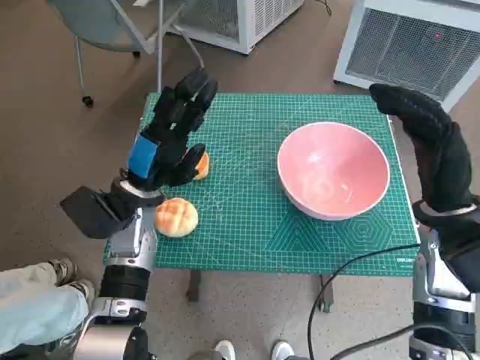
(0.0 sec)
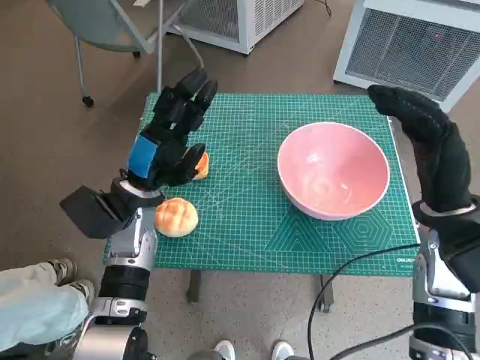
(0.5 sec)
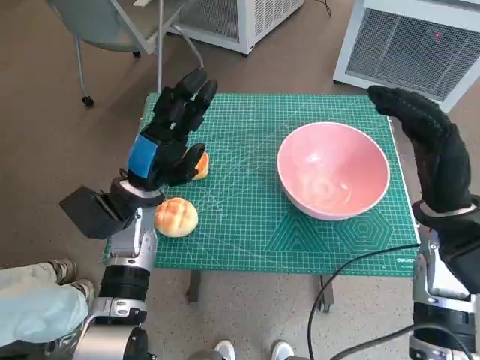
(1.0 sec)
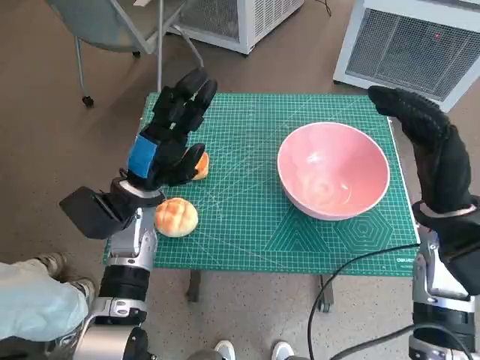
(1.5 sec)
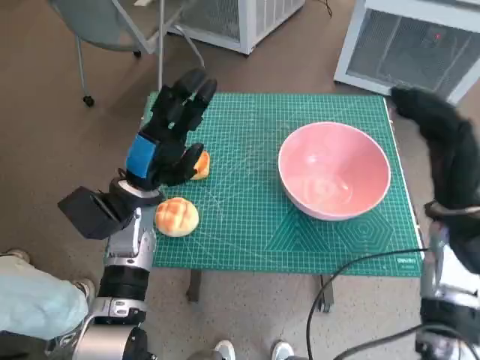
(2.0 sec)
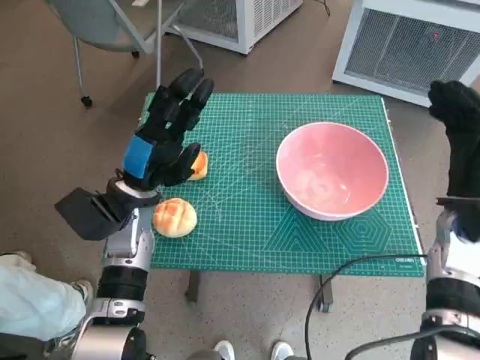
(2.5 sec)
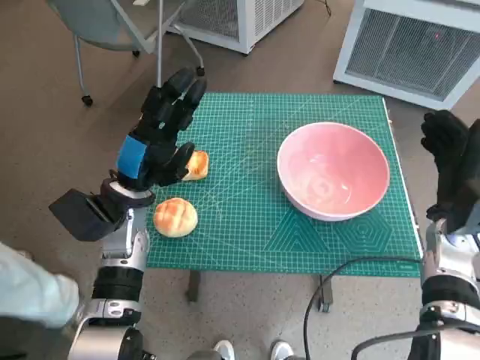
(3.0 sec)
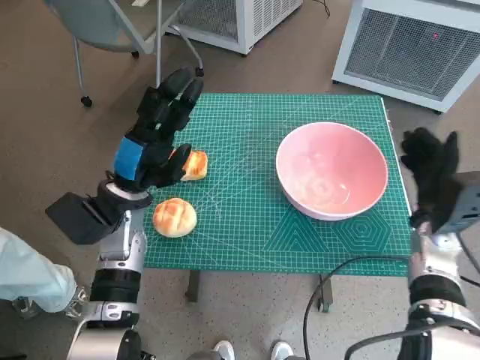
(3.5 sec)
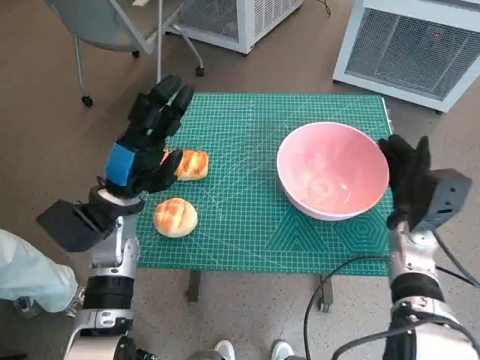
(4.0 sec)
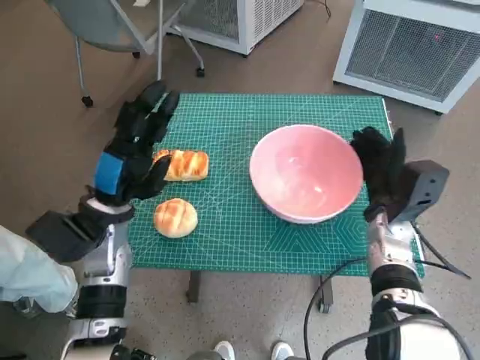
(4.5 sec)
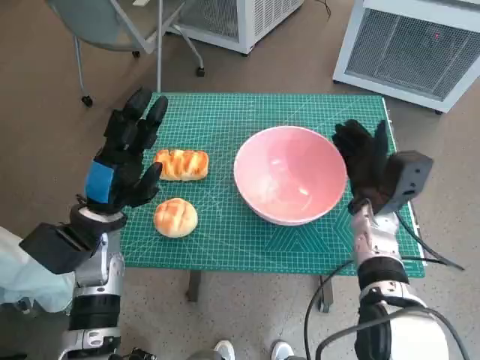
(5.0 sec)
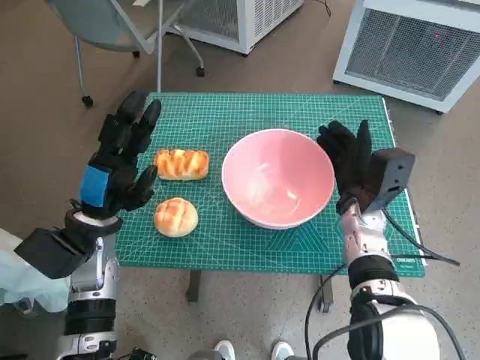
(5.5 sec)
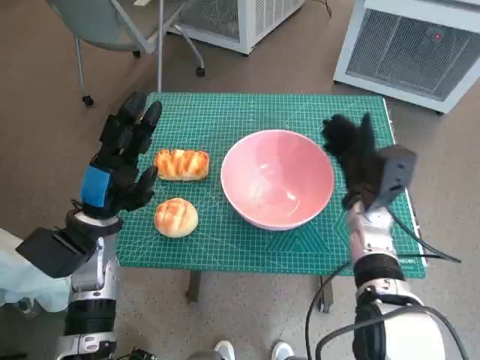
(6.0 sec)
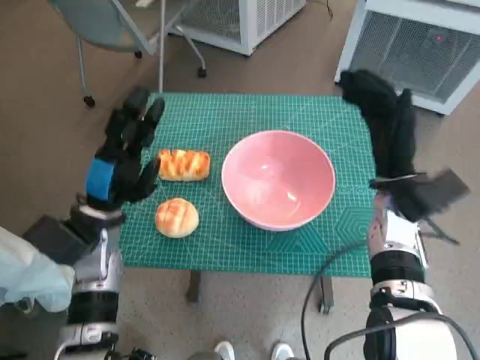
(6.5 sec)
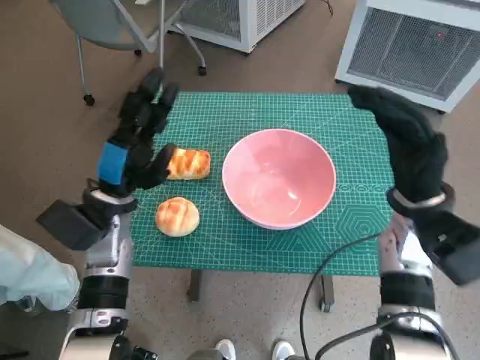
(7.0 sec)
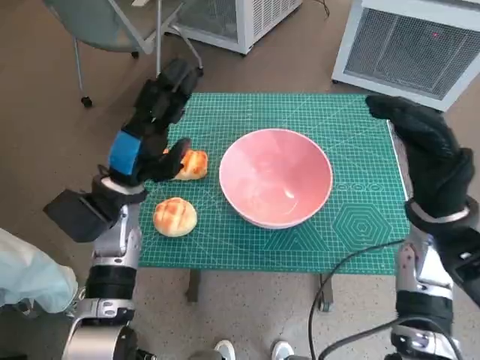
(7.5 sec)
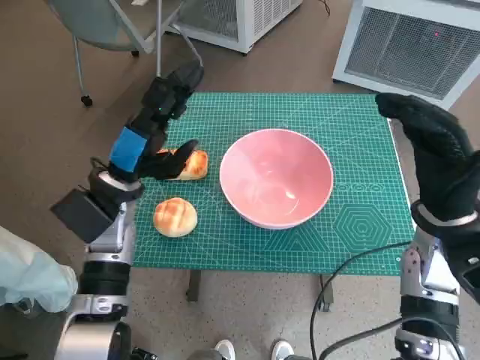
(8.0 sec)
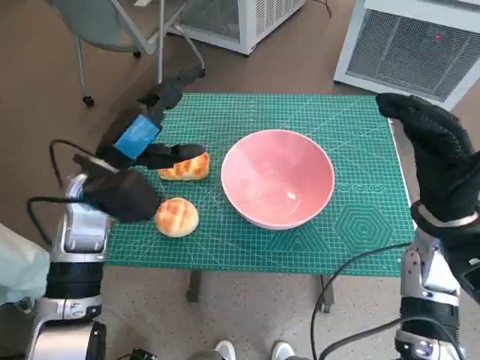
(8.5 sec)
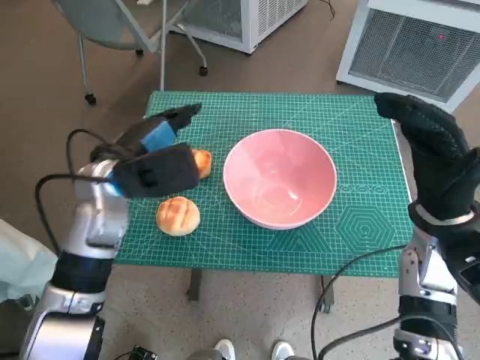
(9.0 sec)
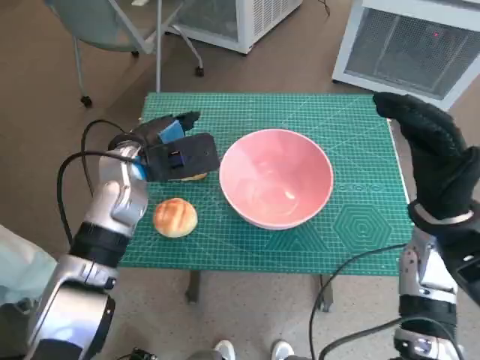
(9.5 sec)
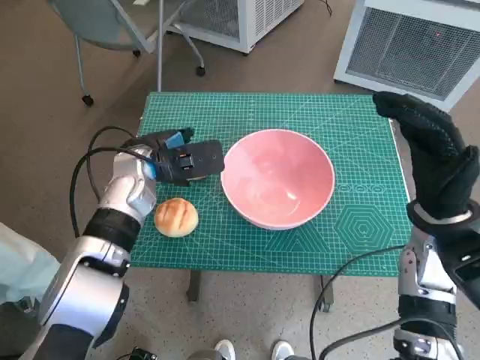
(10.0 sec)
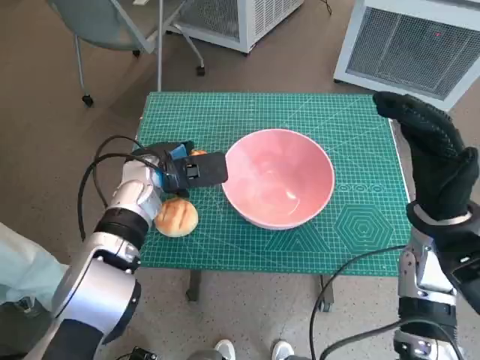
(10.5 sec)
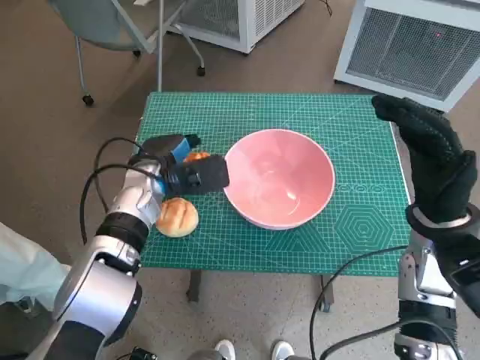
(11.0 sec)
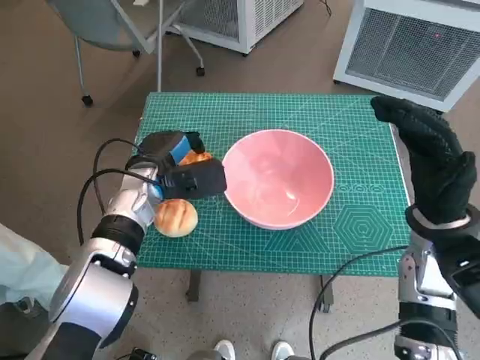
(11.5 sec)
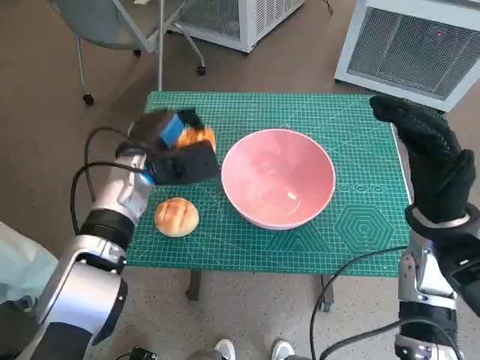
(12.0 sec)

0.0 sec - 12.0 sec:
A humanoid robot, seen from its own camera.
Task of the whole recording: Push the bowl into the center of the table and put the bread into the bowl.
Step, 0.0 sec - 6.0 sec: Move the pink bowl to the center of table with right hand.
Step, 6.5 sec - 11.0 sec: Grasp the long bread with left hand.
2.0 sec - 4.0 sec: The right hand goes roughly 10 cm downward.
4.0 sec - 6.0 sec: The right hand heads to the left, covering approximately 5 cm.
6.0 sec - 8.0 sec: The right hand shifts approximately 10 cm upward, backward and to the right, while the left hand shifts by approximately 5 cm.
8.0 sec - 10.0 sec: The left hand goes about 5 cm forward.

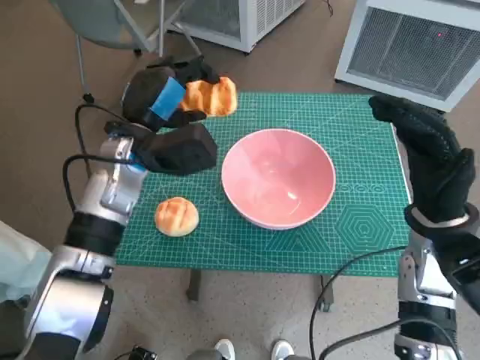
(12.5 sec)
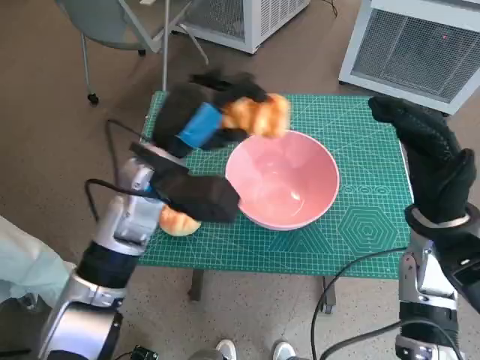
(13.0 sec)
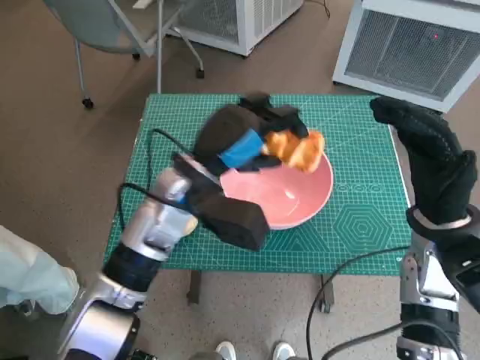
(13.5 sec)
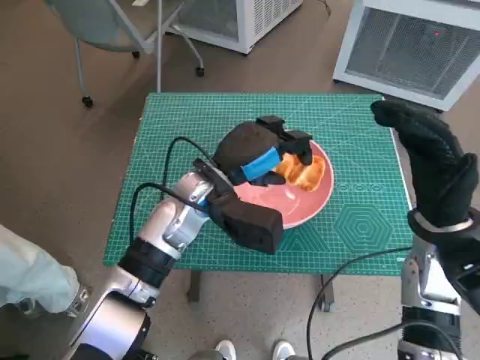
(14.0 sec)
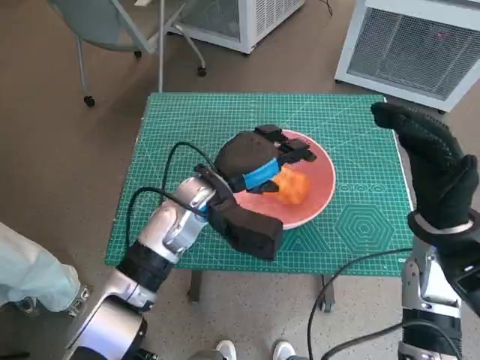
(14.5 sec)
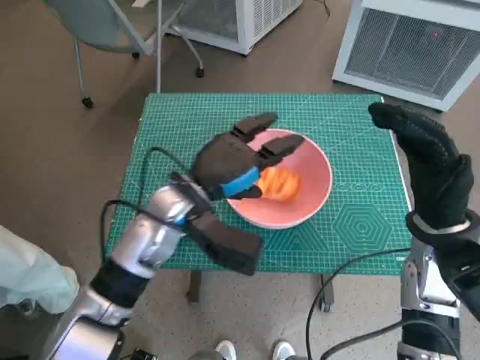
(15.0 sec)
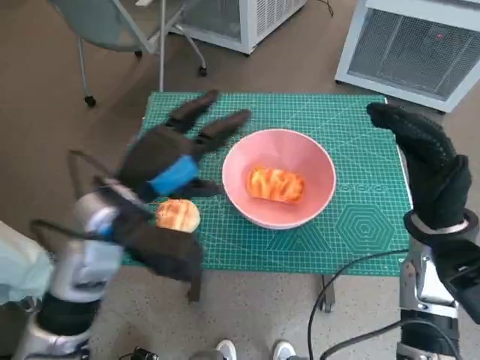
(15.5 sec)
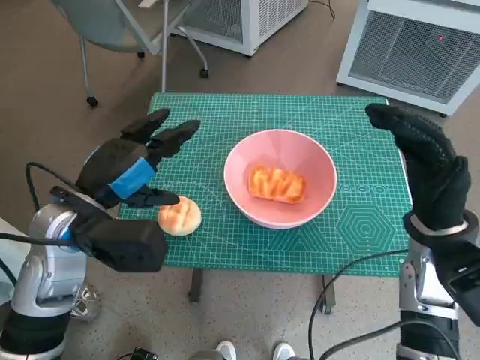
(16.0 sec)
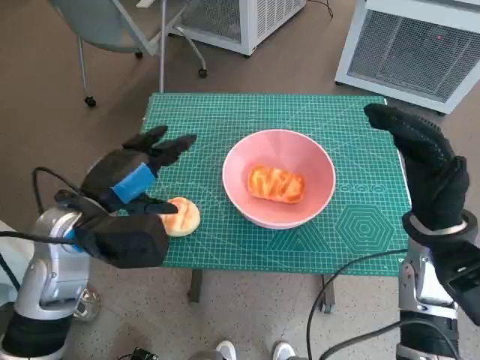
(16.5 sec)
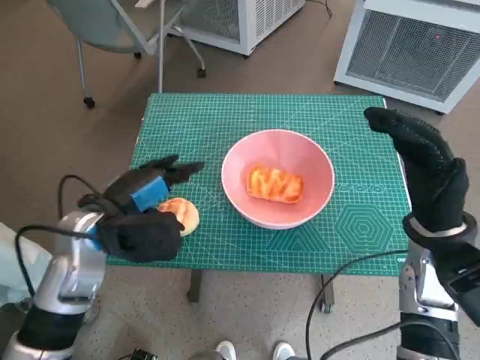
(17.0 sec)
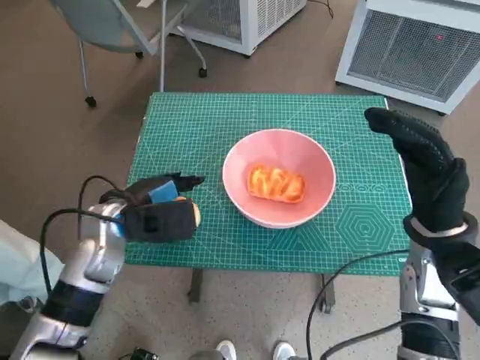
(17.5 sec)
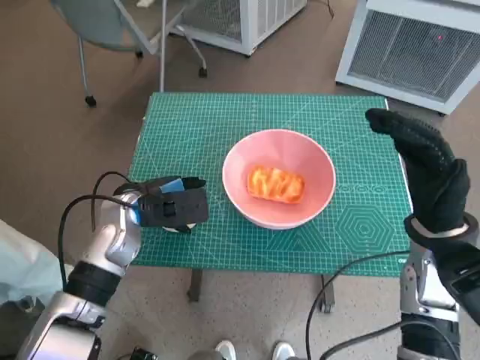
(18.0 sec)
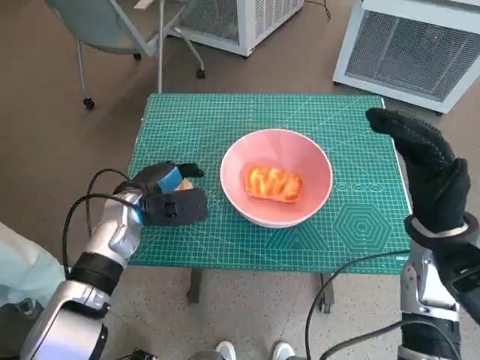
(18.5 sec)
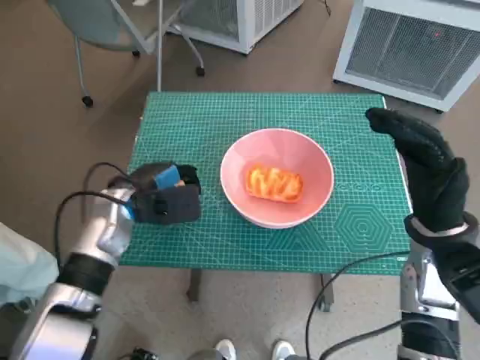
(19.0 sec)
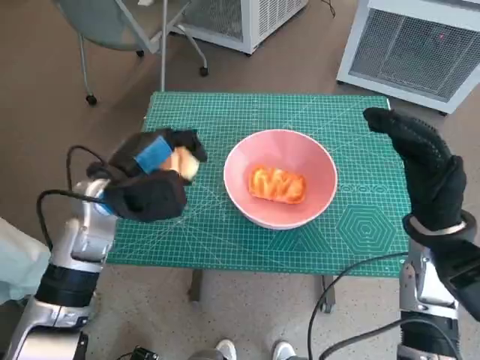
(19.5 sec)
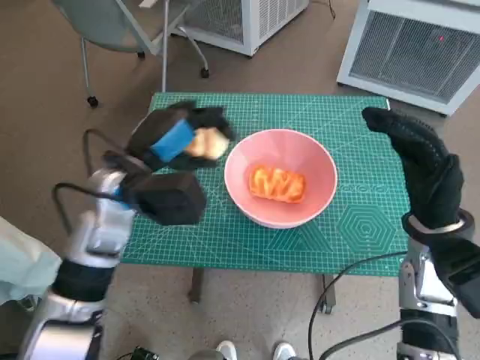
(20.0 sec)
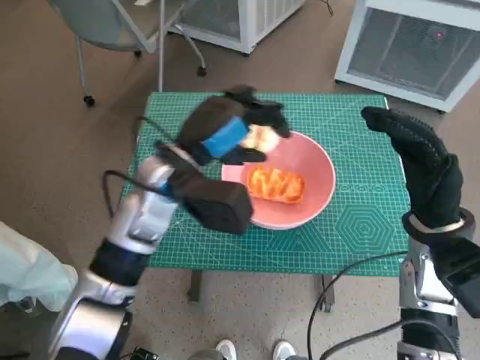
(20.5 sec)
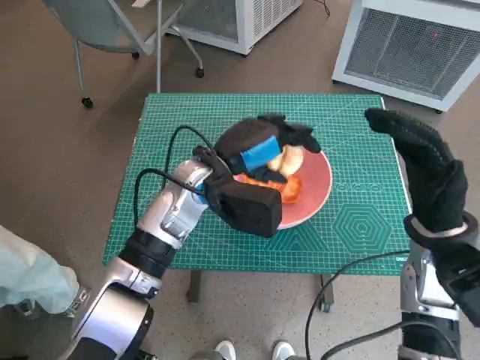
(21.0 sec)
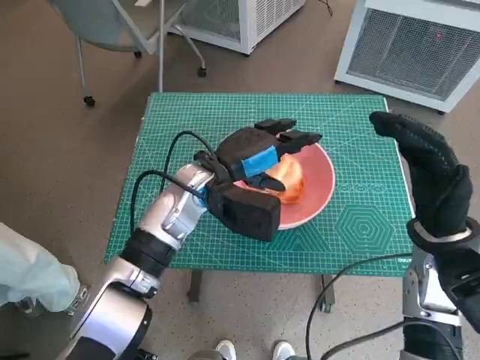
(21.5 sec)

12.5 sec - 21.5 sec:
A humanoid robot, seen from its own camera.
Task of the whole recording: Push the bowl into the center of the table and put the bread into the bowl.
Step, 12.5 sec - 14.5 sec: Place the long bread in pink bowl with left hand.
Step, 15.0 sec - 18.5 sec: Grasp the round bread with left hand.
Step, 19.0 sec - 21.0 sec: Place the round bread in pink bowl with left hand.
12.5 sec - 14.5 sec: The left hand shifts about 10 cm to the right.
14.5 sec - 17.0 sec: The left hand heads to the left and backward, covering some 15 cm.
19.5 sec - 21.5 sec: The left hand moves to the right, roughly 10 cm.

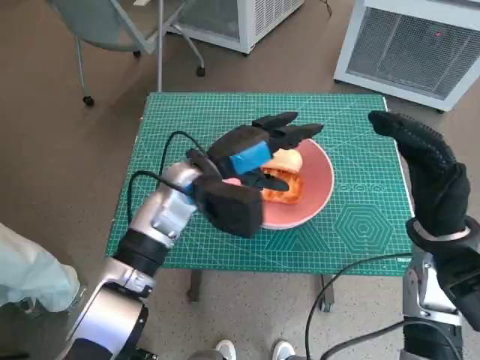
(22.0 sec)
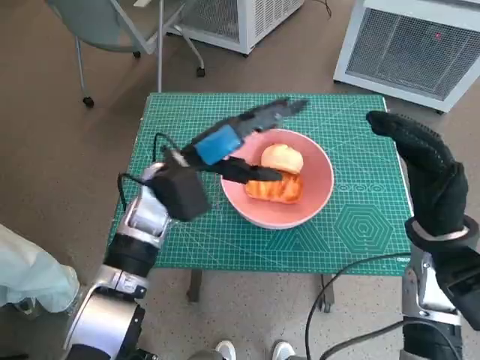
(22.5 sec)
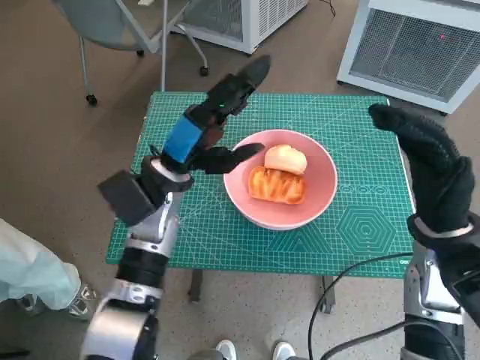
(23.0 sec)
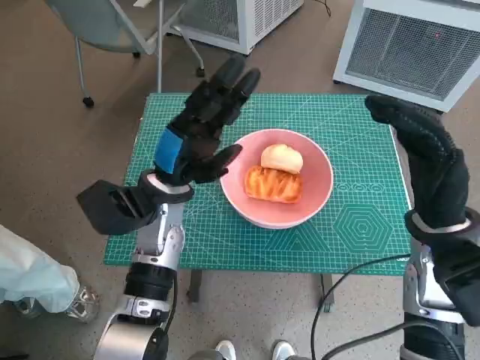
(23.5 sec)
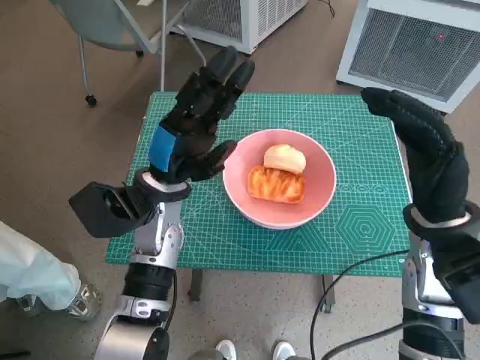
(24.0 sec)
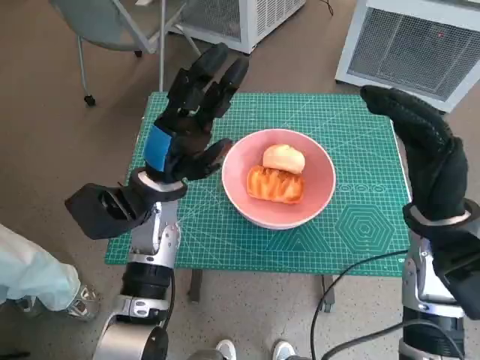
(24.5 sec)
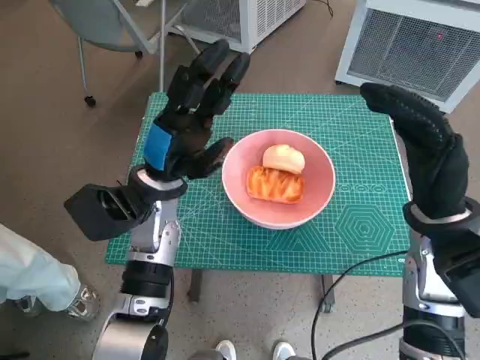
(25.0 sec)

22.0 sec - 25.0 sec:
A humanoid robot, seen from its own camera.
Task of the whole recording: Push the bowl into the center of the table and put the bread into the bowl.
22.0 sec - 23.5 sec: The left hand shifts by roughly 5 cm.
23.5 sec - 25.0 sec: There are only small adjustments of the hands.

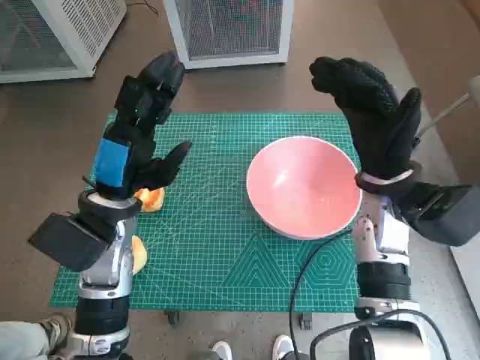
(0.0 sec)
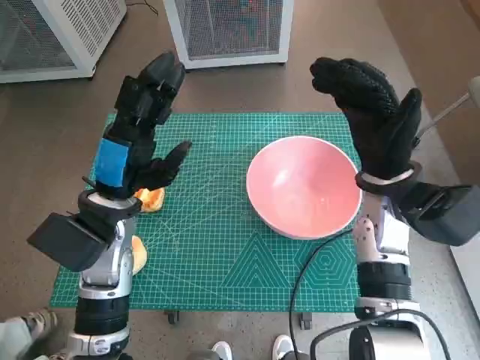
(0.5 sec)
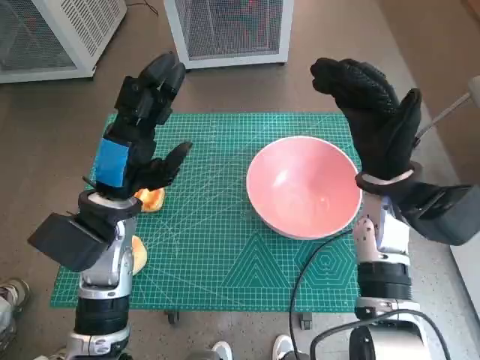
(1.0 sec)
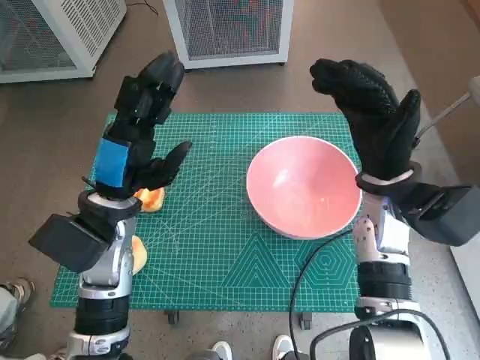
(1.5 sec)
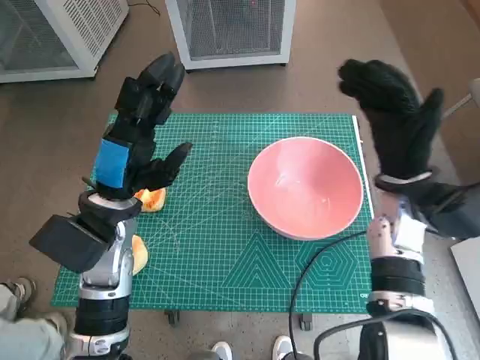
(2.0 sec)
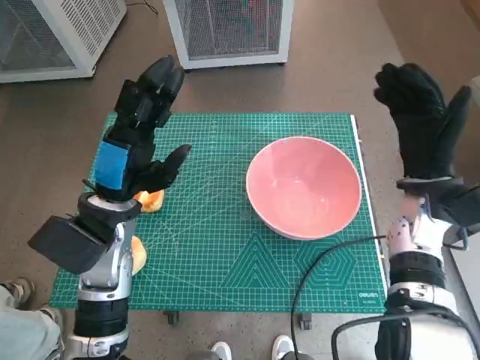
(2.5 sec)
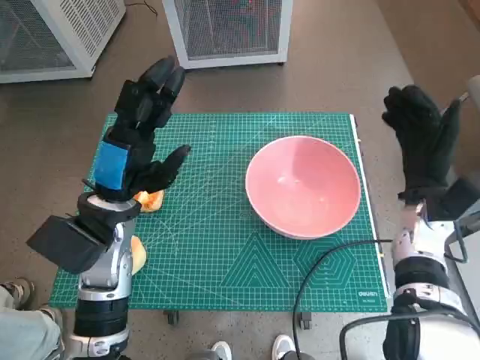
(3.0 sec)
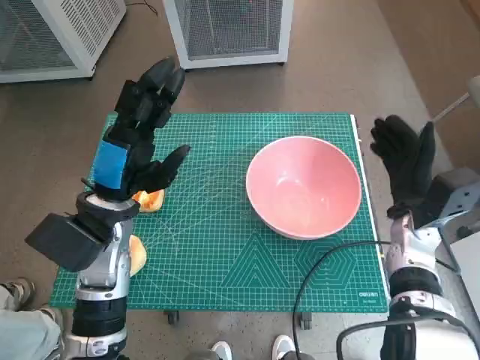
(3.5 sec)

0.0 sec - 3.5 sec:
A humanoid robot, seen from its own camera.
Task of the whole recording: Push the bowl into the center of the table and put the bread into the bowl.
2.0 sec - 3.5 sec: The right hand heads downward, covering approximately 10 cm.
